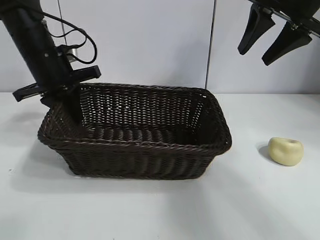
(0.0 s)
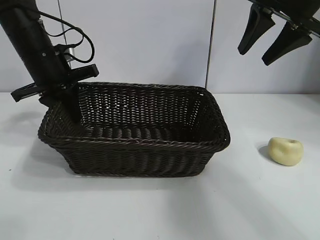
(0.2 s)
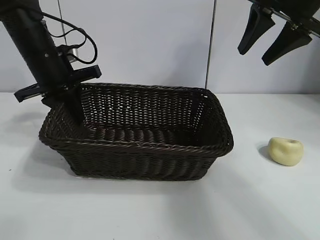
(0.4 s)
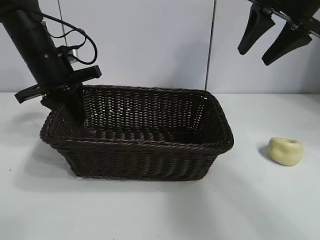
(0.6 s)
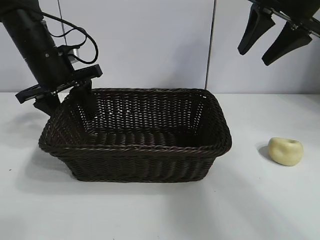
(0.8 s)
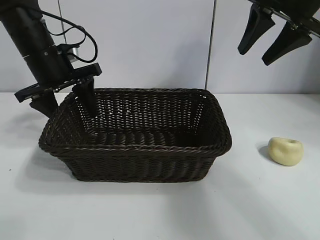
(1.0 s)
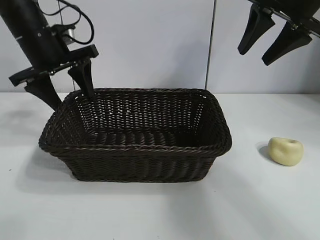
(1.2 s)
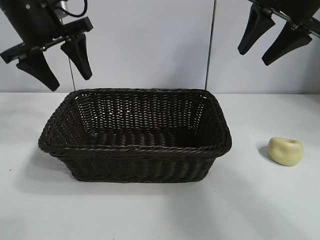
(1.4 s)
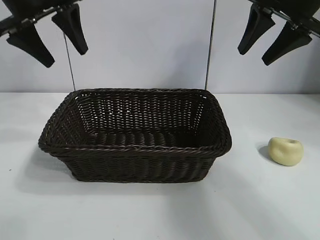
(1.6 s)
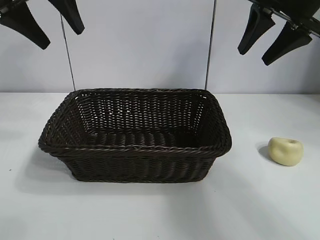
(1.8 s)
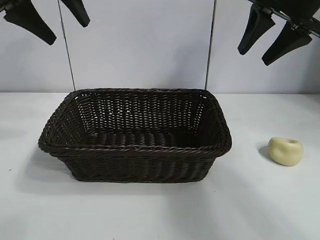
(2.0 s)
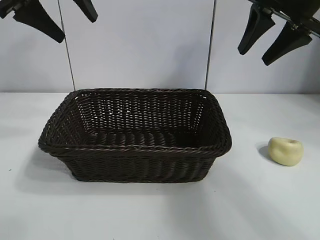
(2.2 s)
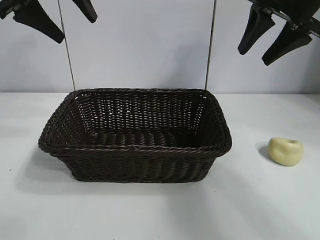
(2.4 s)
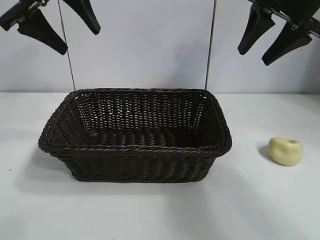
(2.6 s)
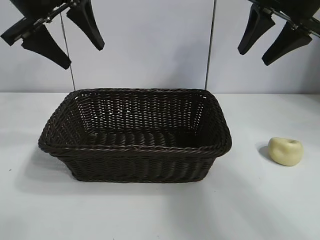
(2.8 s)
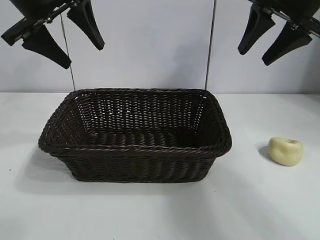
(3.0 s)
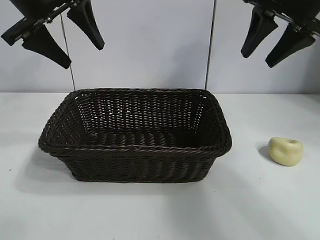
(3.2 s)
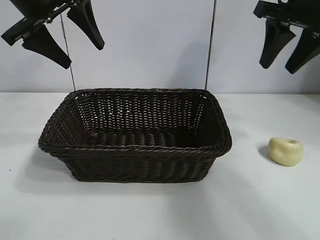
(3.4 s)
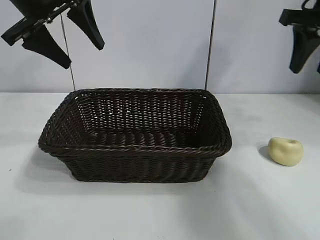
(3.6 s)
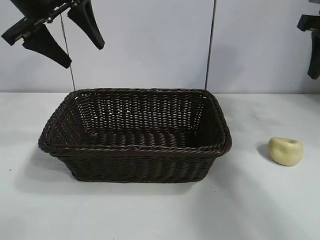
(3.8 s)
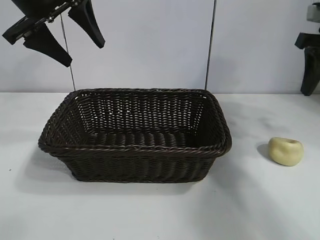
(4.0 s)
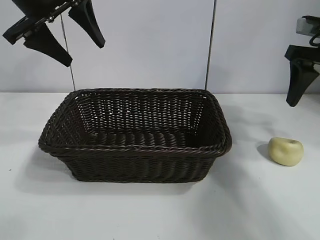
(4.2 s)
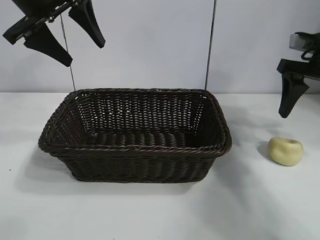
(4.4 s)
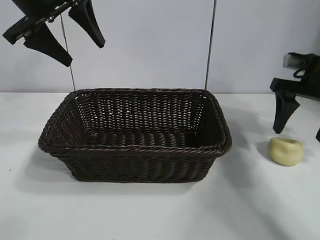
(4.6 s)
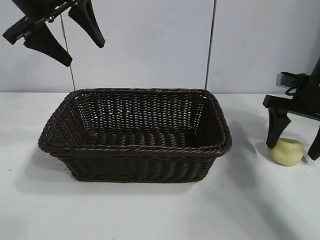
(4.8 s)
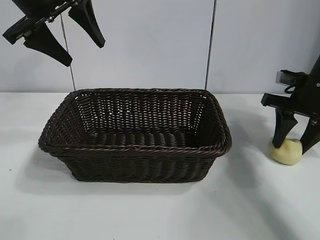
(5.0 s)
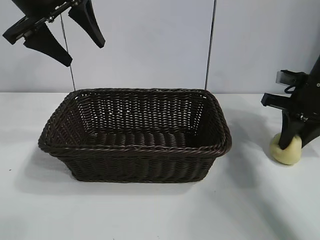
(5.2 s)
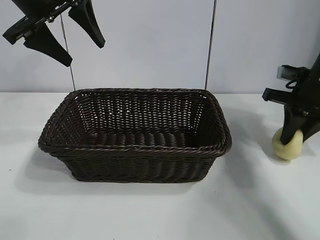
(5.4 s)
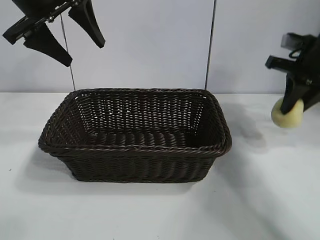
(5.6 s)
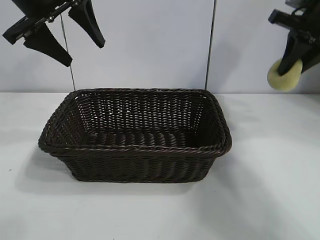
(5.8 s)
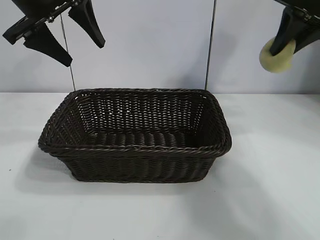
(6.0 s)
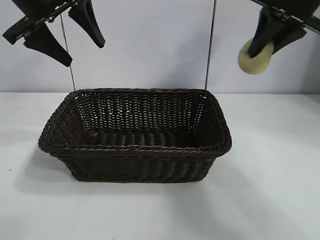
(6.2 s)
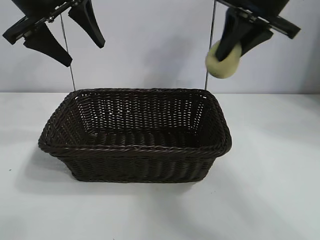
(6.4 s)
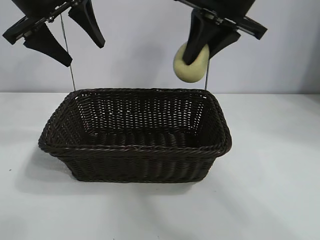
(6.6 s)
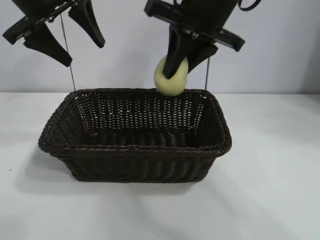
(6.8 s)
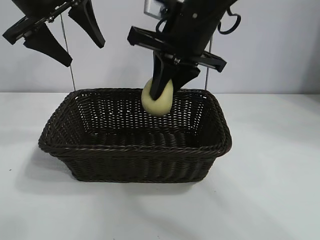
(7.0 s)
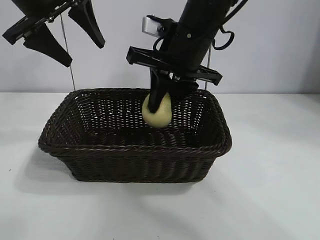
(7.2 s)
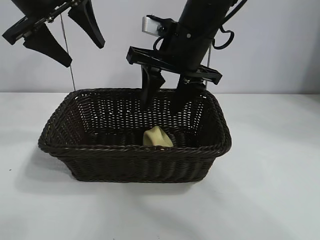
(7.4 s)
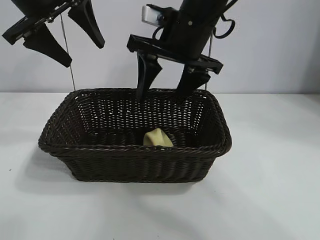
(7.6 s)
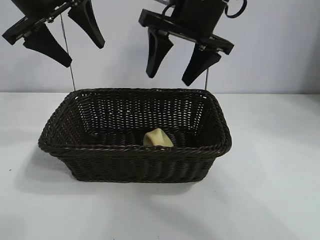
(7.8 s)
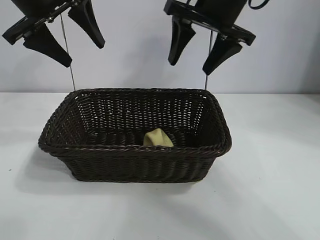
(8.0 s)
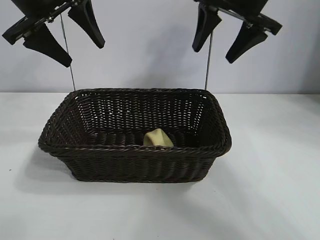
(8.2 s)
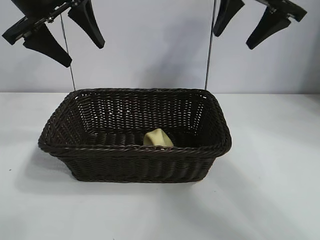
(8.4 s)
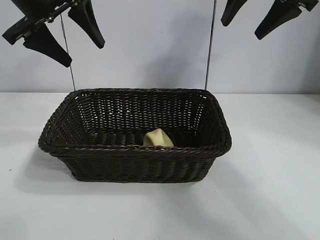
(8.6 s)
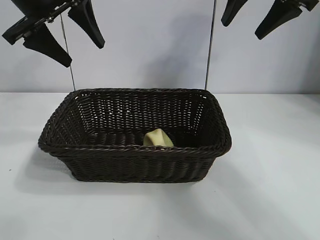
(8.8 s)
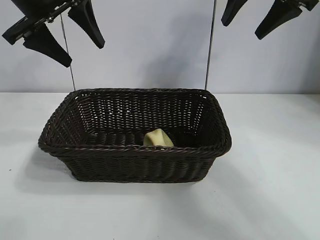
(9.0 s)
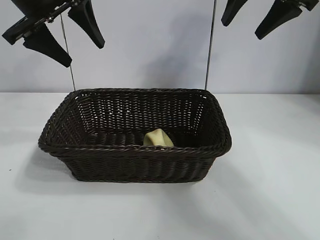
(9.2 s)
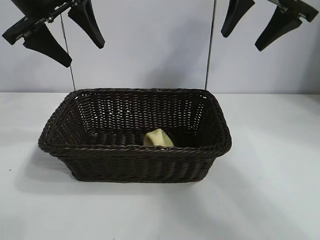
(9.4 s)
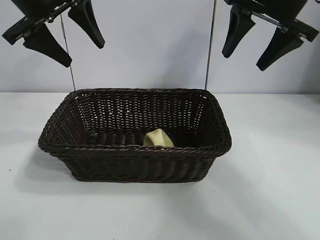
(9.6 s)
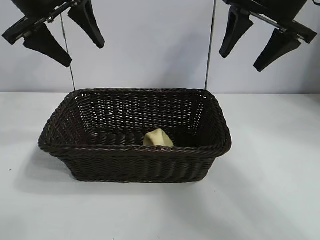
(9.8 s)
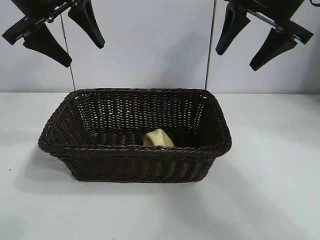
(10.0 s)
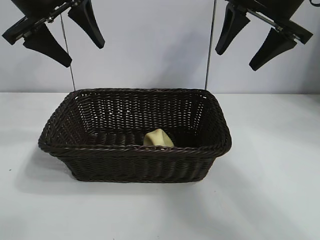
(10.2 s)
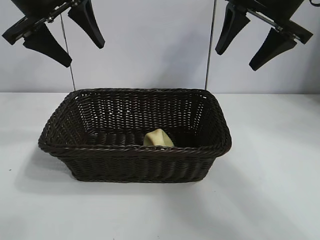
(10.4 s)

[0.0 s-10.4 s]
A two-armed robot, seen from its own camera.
Task of the whole recording: pick up the egg yolk pastry and put it into the basket.
Step, 1.2 to 5.2 s: Grasp egg yolk pastry with right gripper.
Step, 5.4 to 7.4 s: Place the egg yolk pastry in the basket with right gripper.

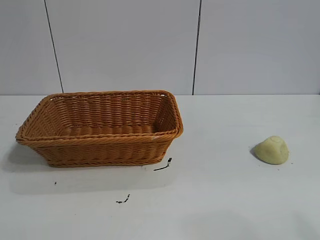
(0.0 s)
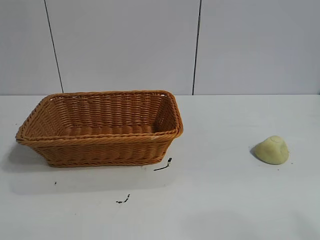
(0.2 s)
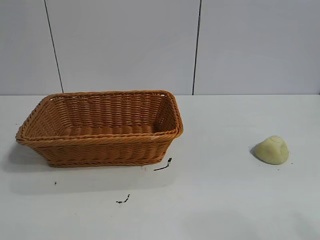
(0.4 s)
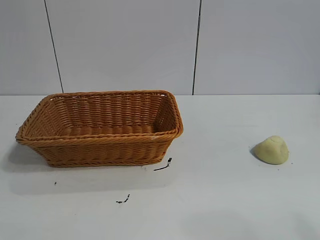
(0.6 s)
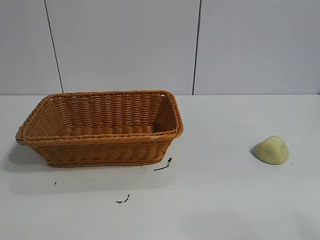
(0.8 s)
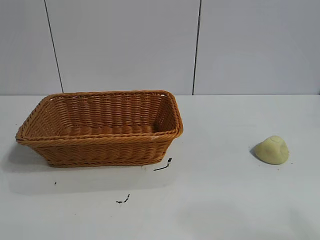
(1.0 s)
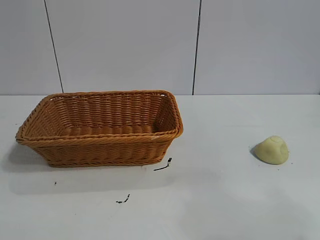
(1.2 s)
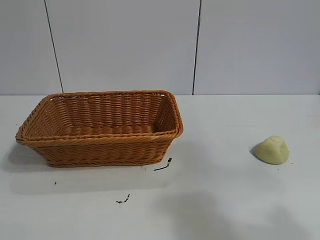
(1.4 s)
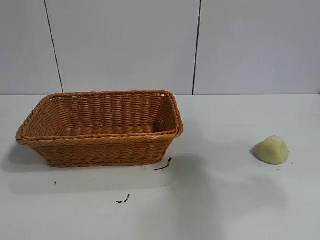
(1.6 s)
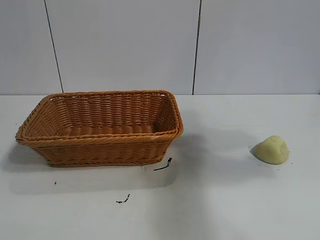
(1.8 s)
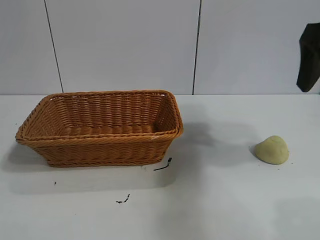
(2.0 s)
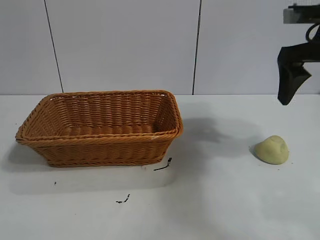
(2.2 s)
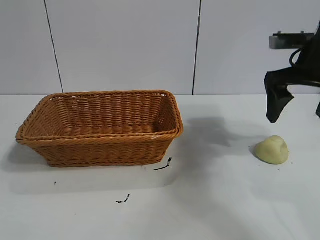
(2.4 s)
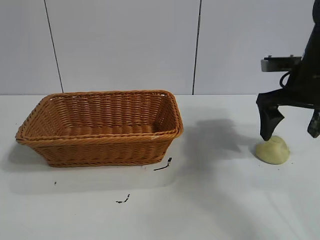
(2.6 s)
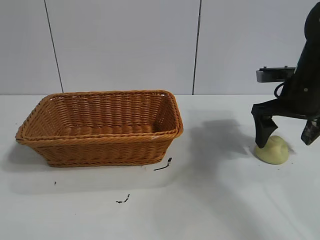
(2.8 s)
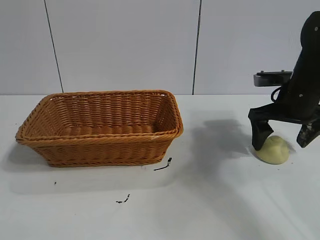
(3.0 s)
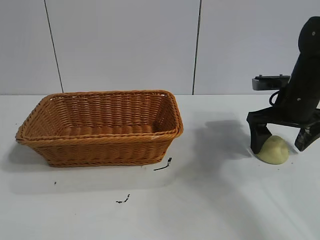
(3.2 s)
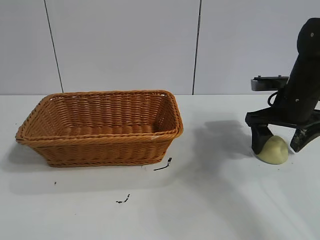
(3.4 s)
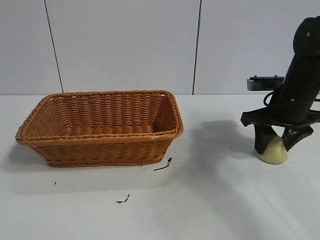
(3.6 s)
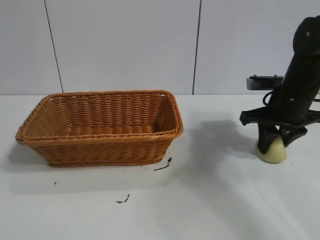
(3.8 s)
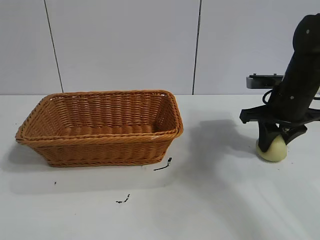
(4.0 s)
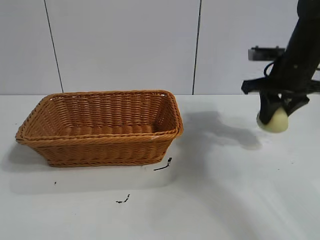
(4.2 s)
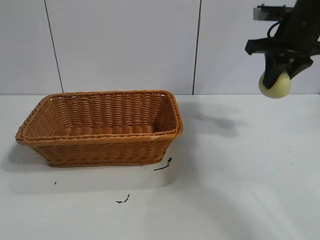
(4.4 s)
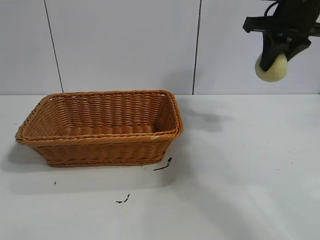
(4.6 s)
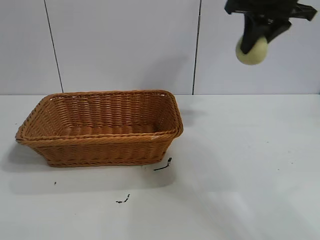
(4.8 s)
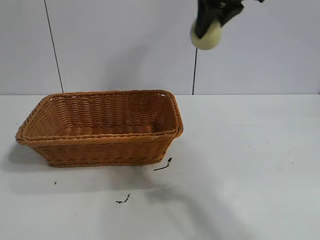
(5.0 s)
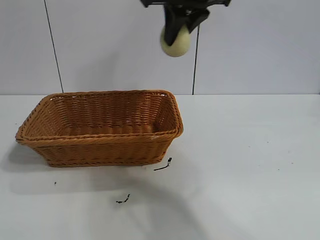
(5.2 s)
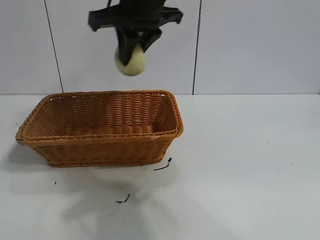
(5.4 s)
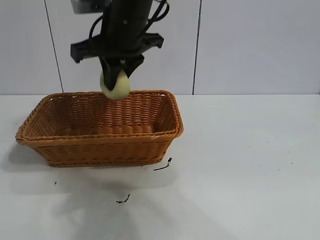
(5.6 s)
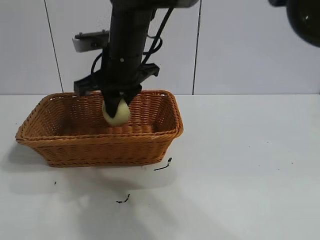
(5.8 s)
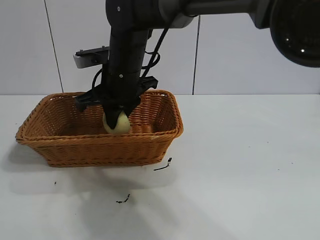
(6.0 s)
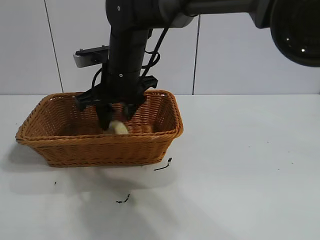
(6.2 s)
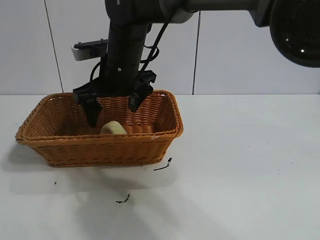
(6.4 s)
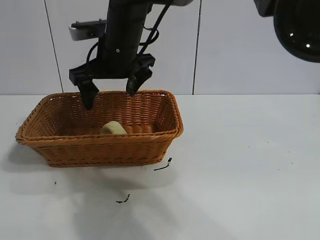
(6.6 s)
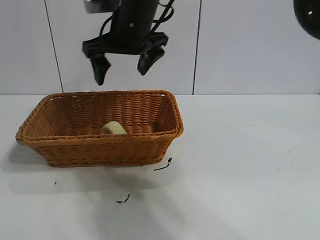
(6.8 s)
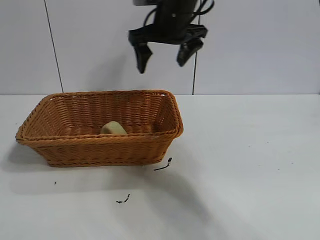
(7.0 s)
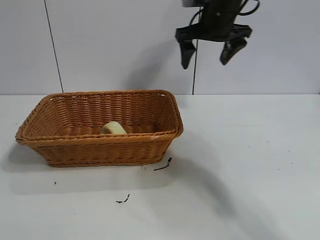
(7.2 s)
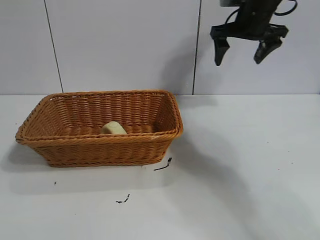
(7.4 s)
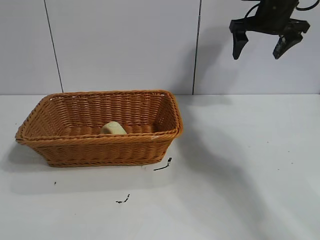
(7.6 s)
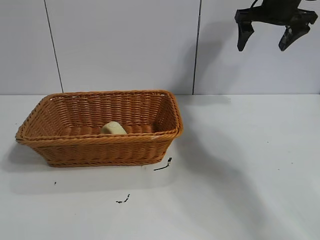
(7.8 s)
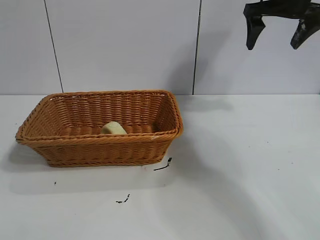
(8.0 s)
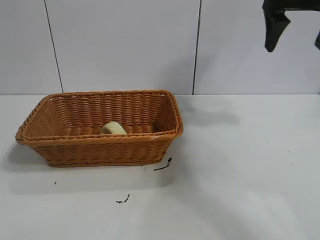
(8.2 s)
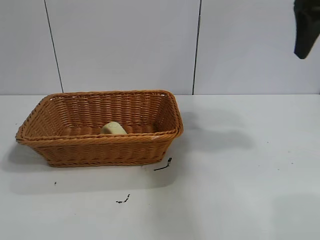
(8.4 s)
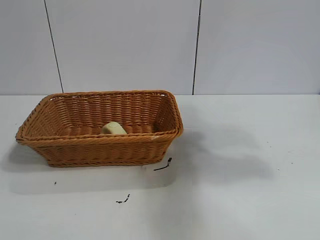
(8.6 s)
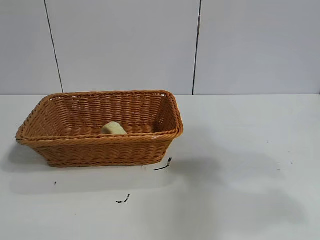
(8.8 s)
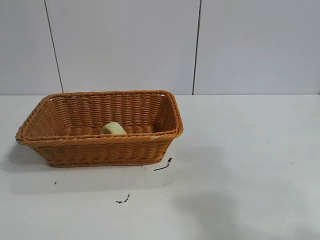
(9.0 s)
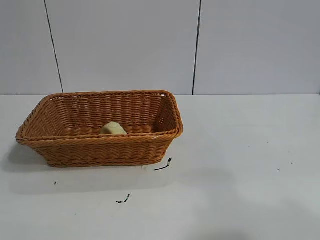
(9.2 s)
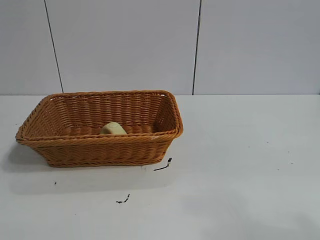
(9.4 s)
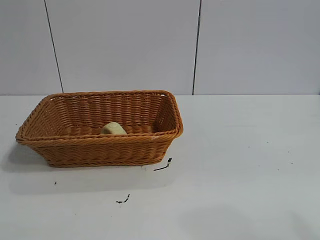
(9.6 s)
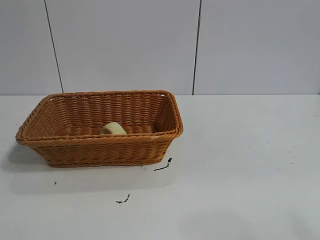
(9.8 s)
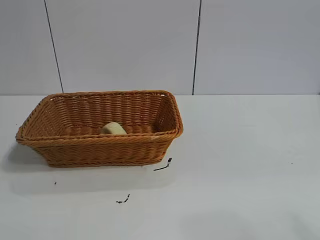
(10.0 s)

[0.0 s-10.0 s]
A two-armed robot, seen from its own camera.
Task of the whole recording: pick up the egg yolk pastry and put it into the basket.
Step, 1.0 to 3.8 s: Grasp egg yolk pastry with right gripper.
Step, 4.0 to 6.2 s: Place the egg yolk pastry in the basket with right gripper.

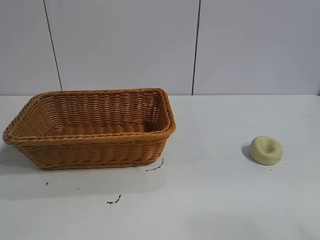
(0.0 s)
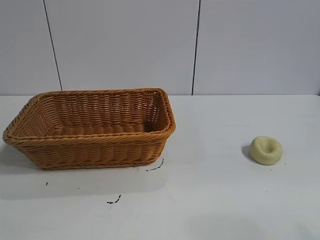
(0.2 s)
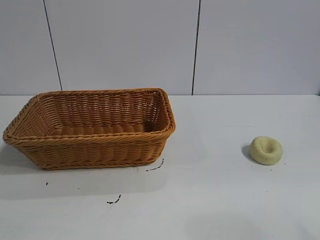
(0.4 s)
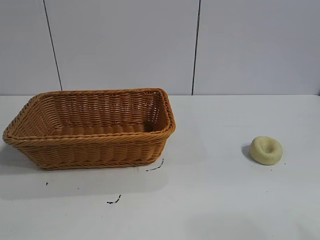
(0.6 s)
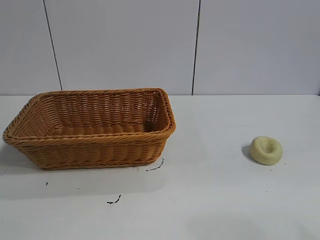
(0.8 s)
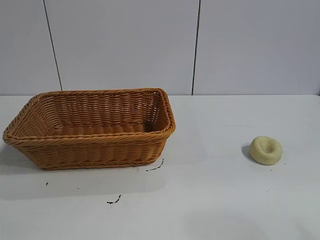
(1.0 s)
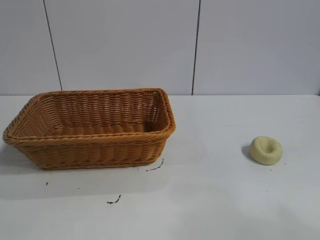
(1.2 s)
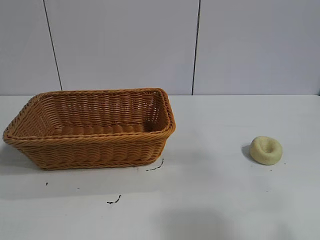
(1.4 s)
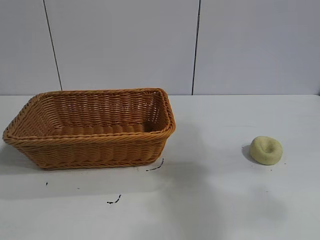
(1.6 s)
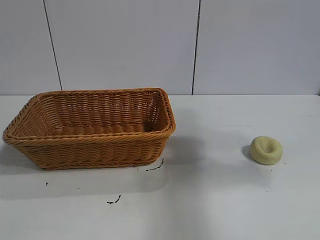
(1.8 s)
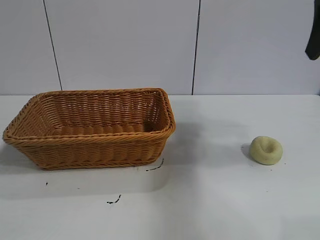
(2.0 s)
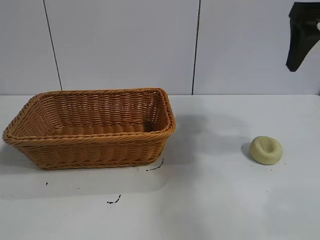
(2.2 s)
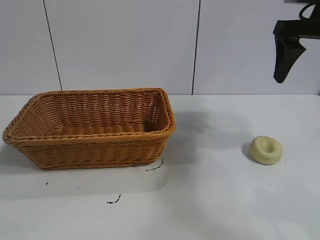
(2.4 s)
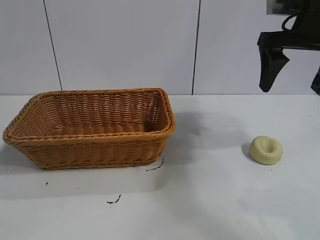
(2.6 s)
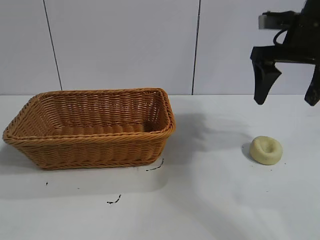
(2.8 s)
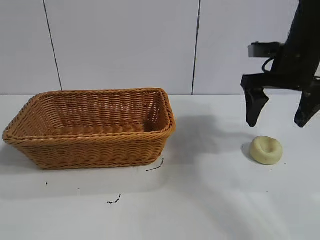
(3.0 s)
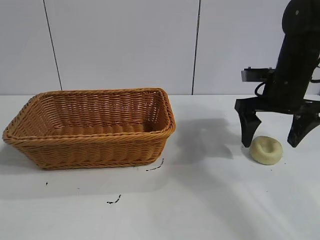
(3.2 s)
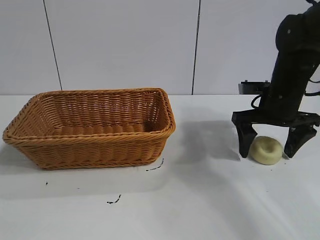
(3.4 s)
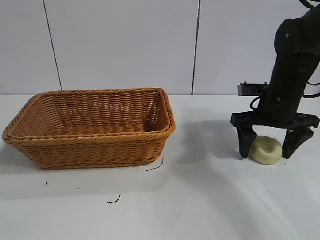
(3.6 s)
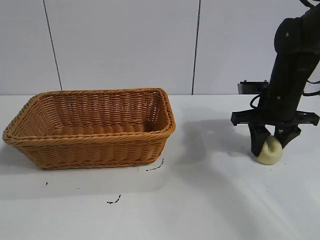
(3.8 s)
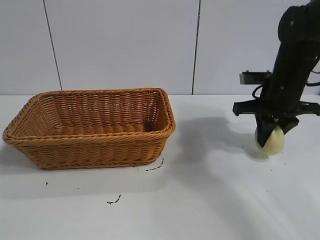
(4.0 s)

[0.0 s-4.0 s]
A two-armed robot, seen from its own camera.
Task of the whole recording: pick up the egg yolk pastry and put it into the basket.
Step, 1.0 to 3.8 s: Grasp egg yolk pastry with right gripper.
